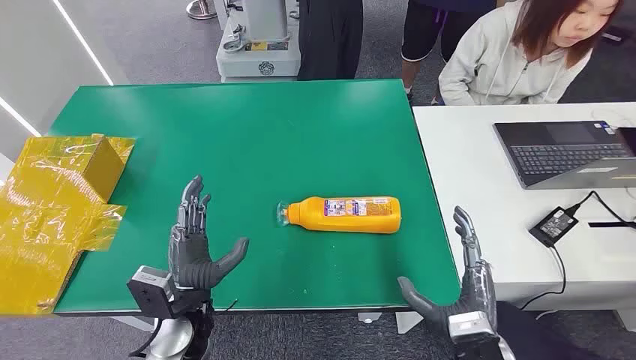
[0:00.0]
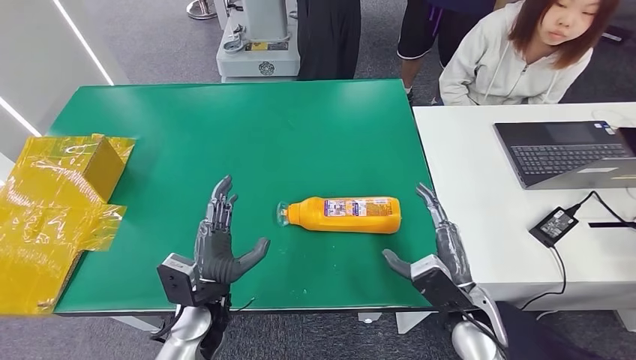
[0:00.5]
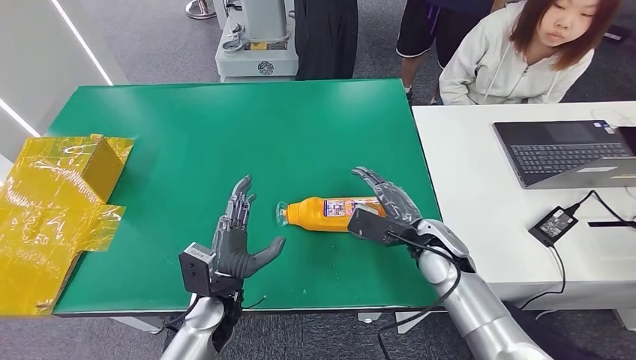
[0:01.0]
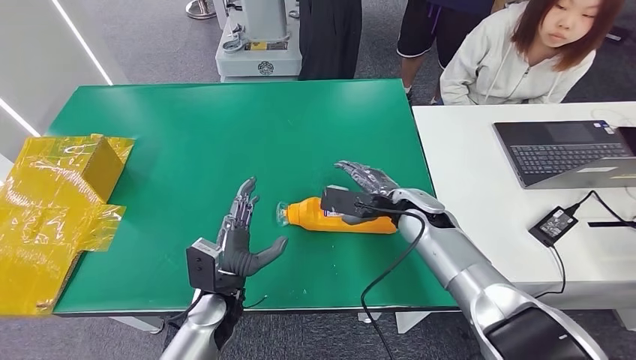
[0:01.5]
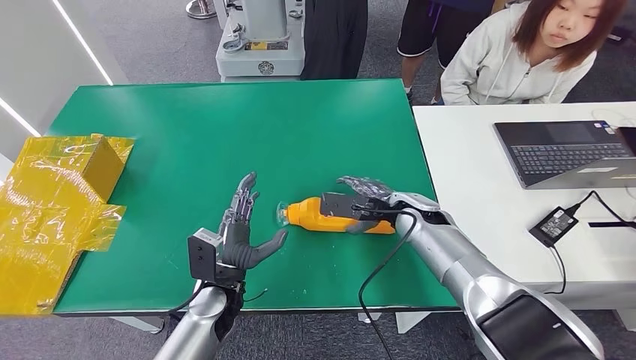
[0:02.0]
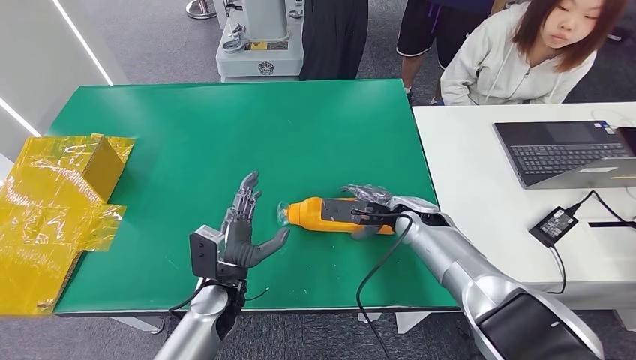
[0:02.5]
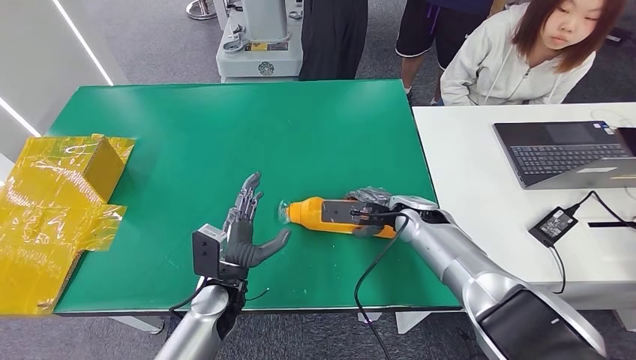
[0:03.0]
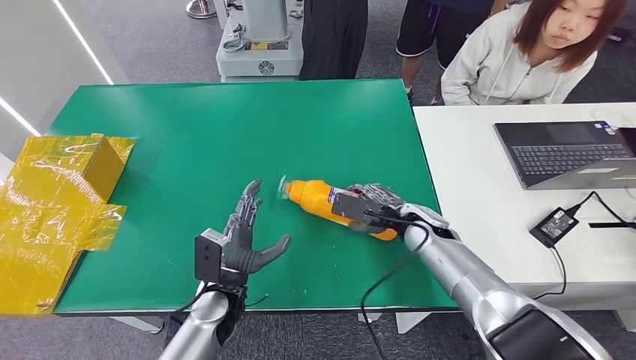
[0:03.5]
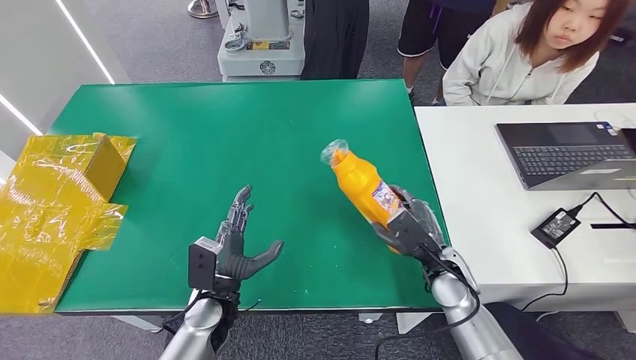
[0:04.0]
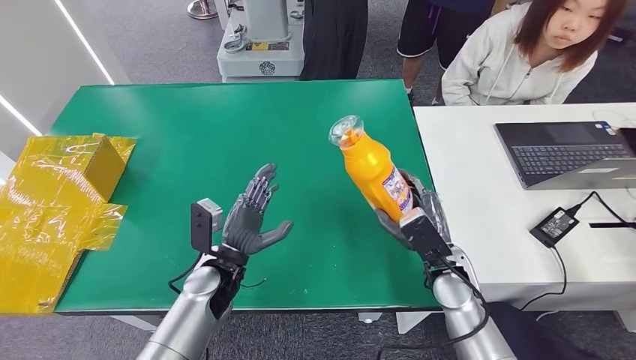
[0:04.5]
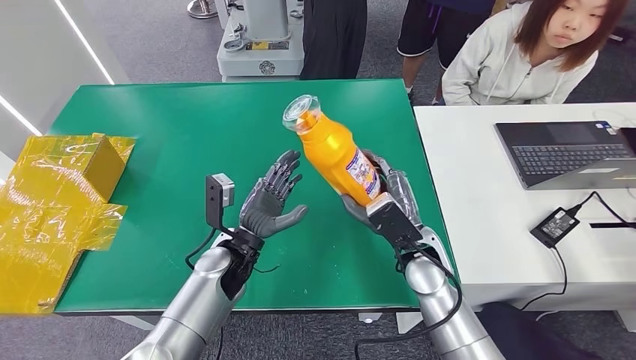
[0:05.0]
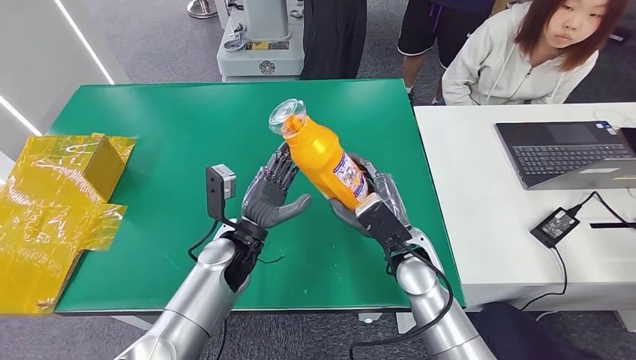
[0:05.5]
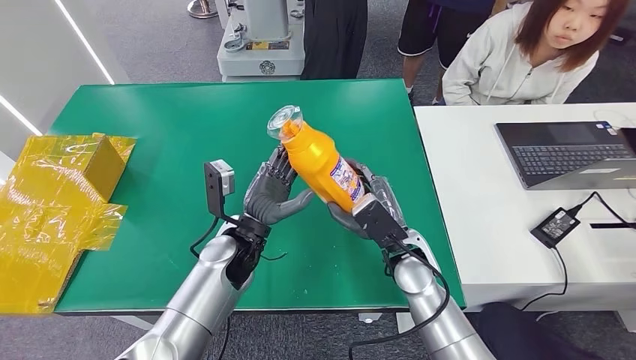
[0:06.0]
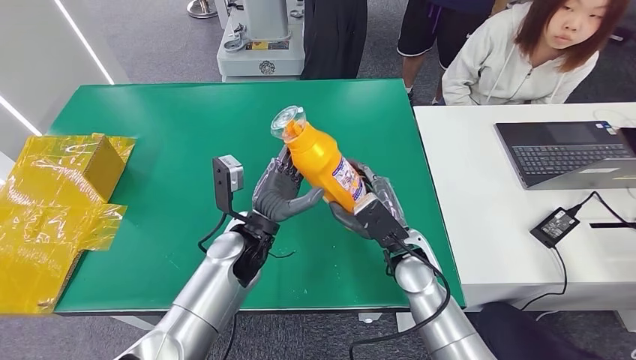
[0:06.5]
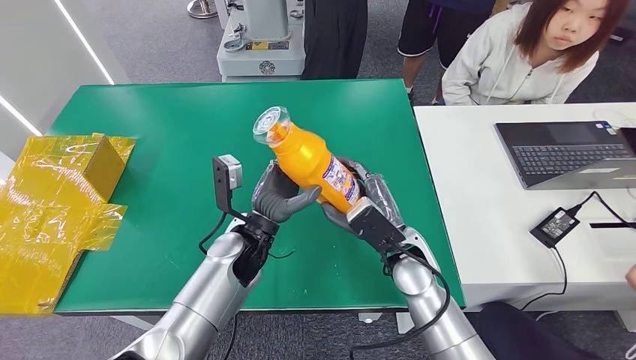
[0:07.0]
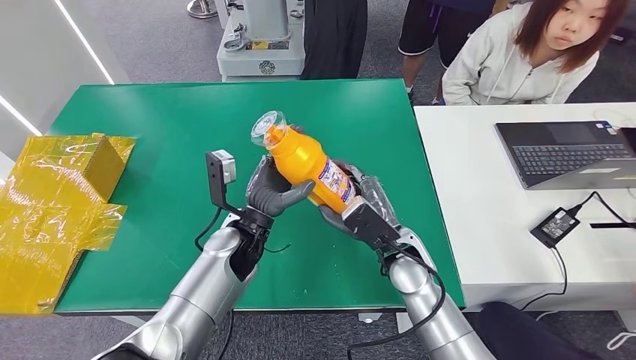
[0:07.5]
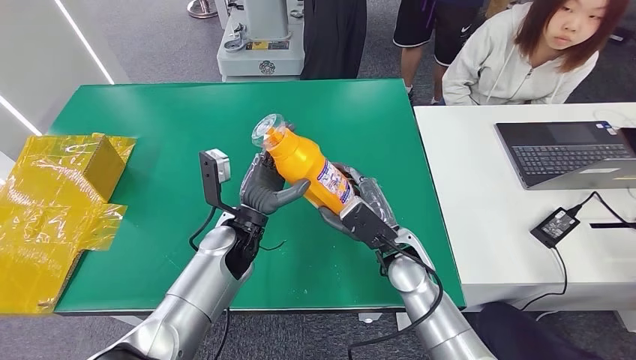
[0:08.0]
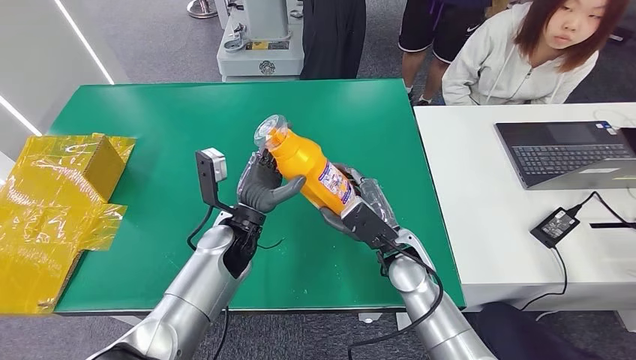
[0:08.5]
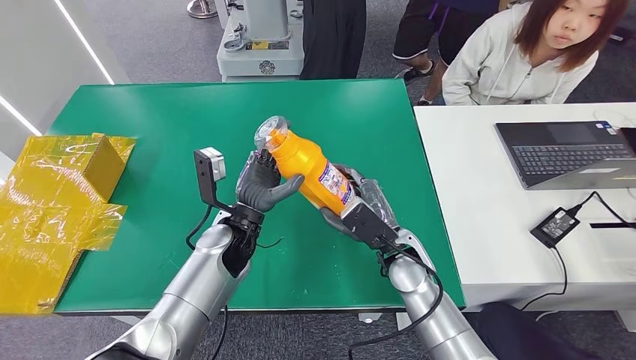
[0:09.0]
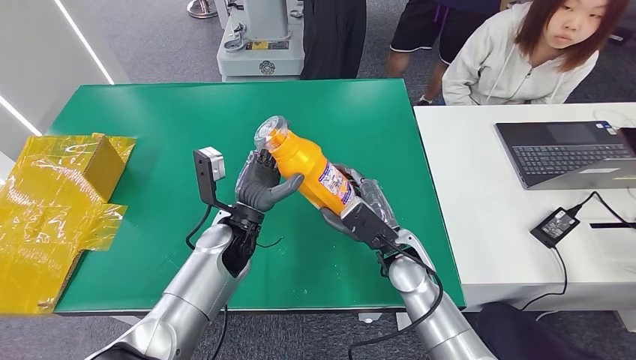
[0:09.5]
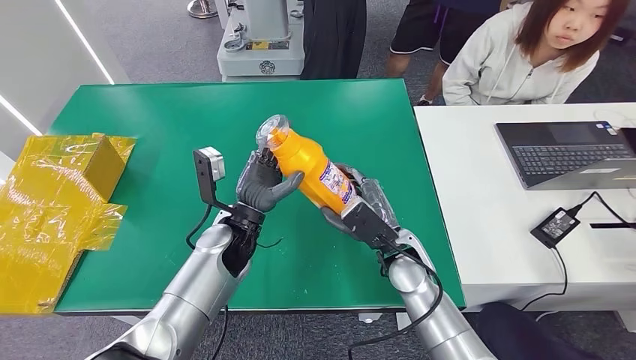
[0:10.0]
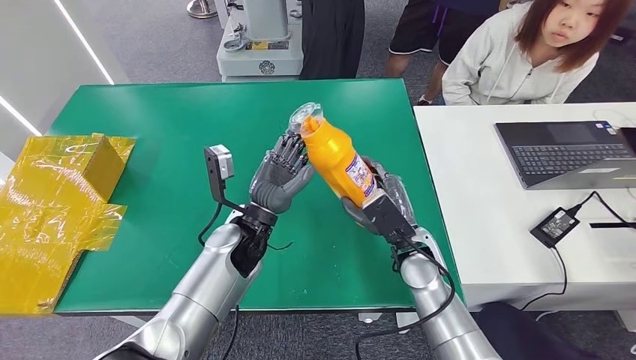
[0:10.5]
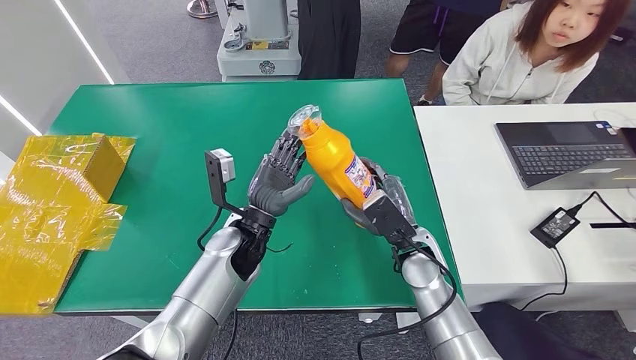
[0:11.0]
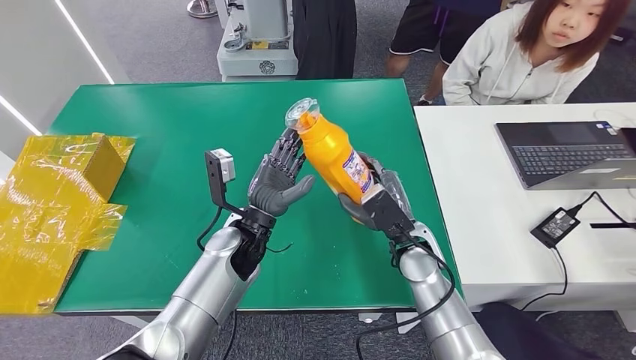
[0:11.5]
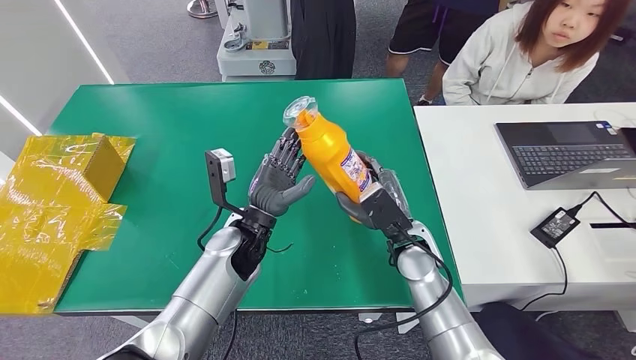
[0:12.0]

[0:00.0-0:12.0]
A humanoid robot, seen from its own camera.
Step, 0:00.0 to 0:05.0: Pick up the bottle from the table.
0:02.0 to 0:04.0: The right hand heads backward and downward, covering roughly 10 cm.
0:04.0 to 0:06.0: The right hand heads to the left and upward, covering roughly 10 cm. Meanwhile the left hand travels upward and forward by roughly 10 cm.
0:06.0 to 0:08.0: There are only small adjustments of the hands.
0:08.0 to 0:10.0: The two hands keep their place.
0:10.0 to 0:12.0: The hands move only a little.

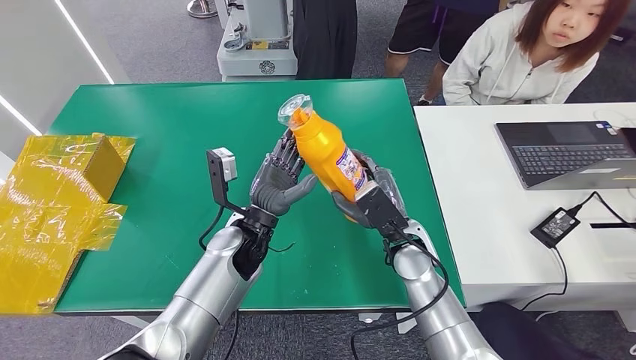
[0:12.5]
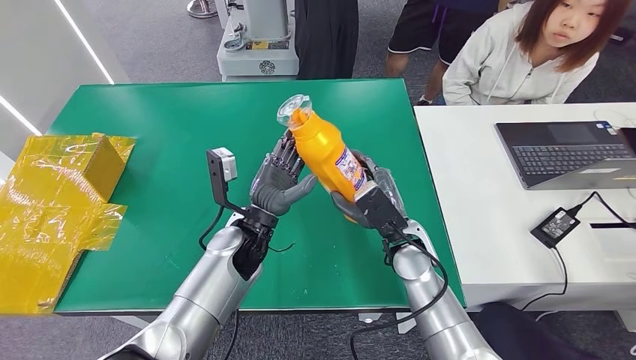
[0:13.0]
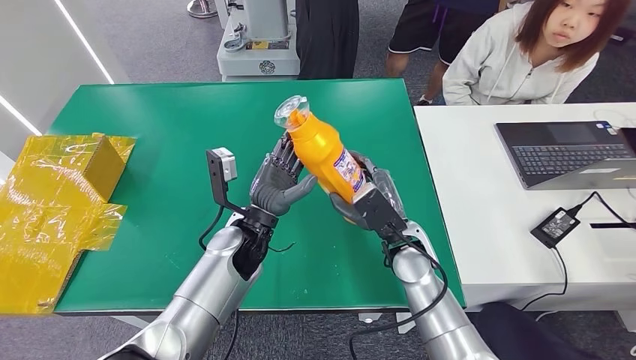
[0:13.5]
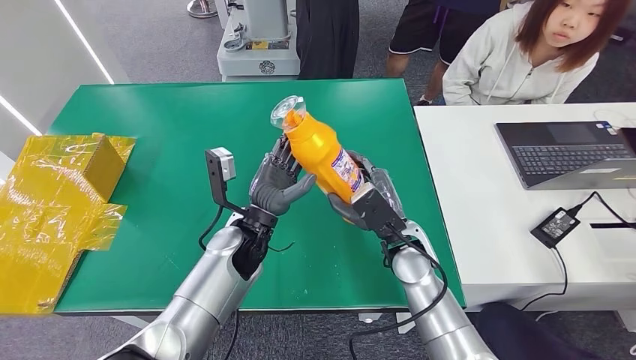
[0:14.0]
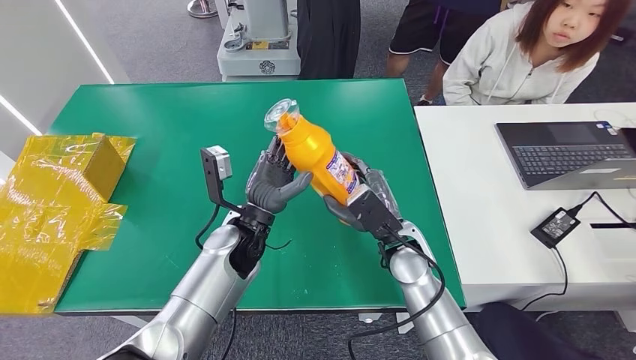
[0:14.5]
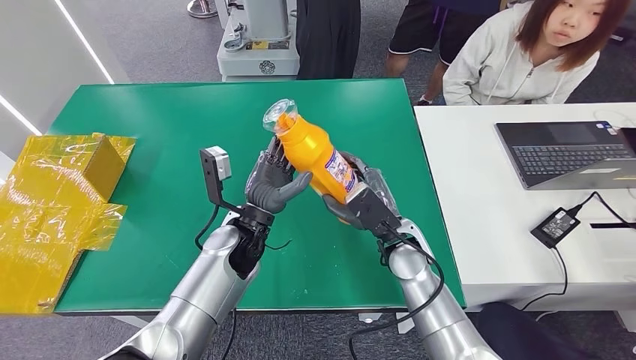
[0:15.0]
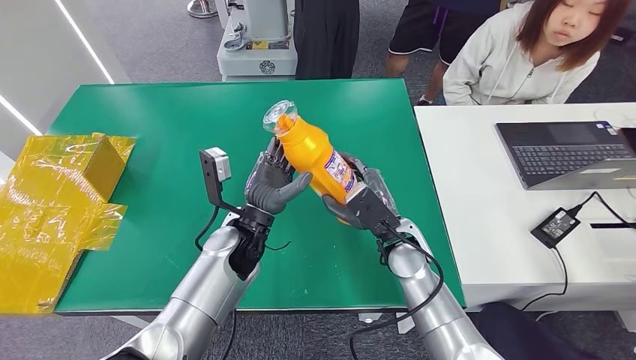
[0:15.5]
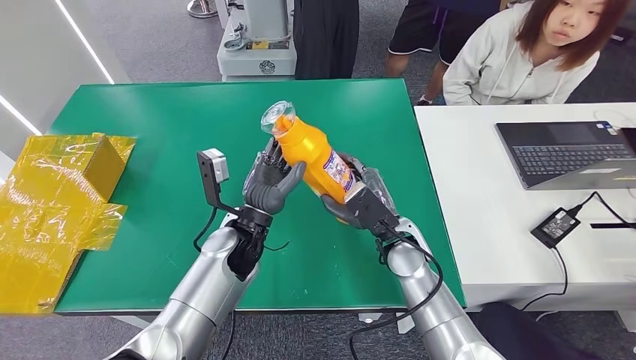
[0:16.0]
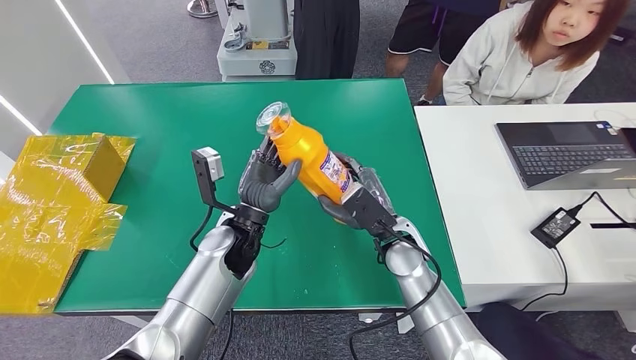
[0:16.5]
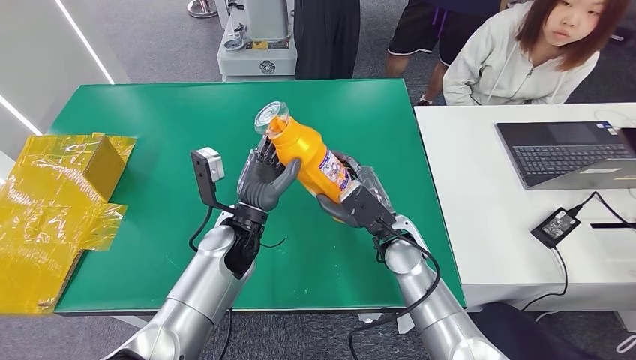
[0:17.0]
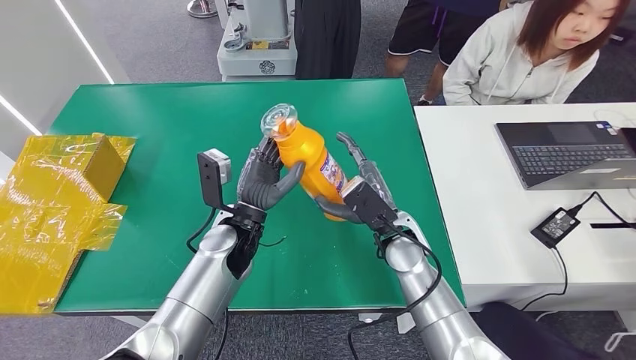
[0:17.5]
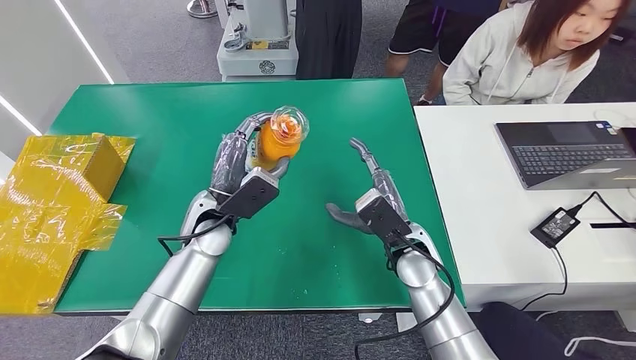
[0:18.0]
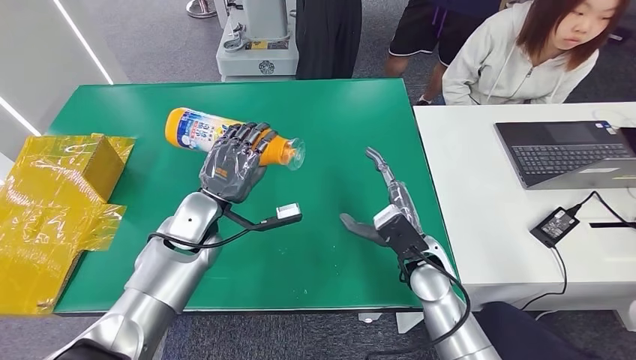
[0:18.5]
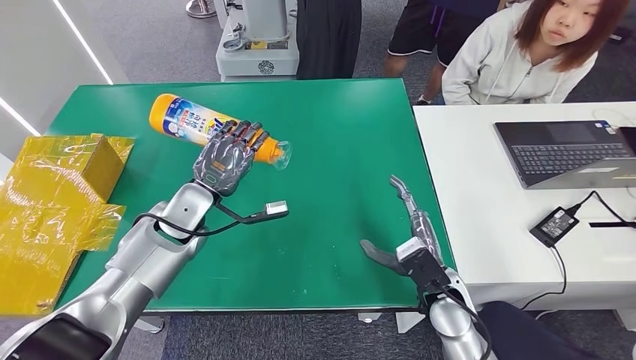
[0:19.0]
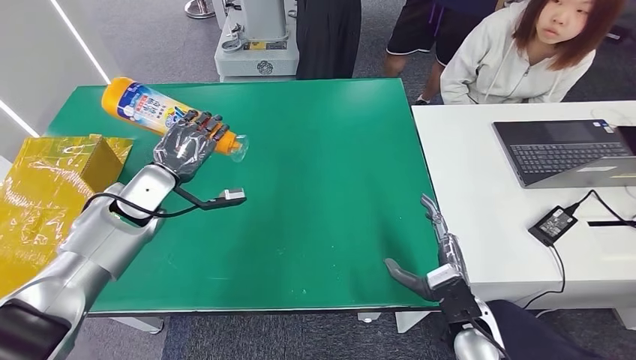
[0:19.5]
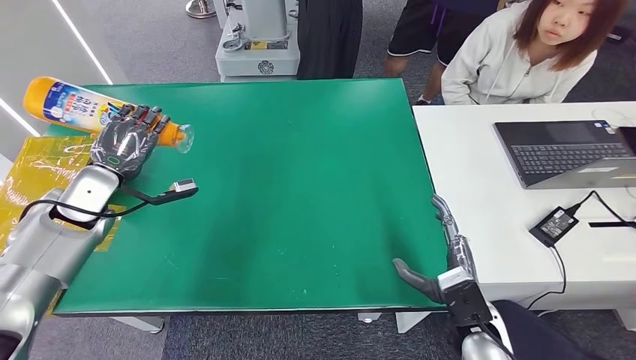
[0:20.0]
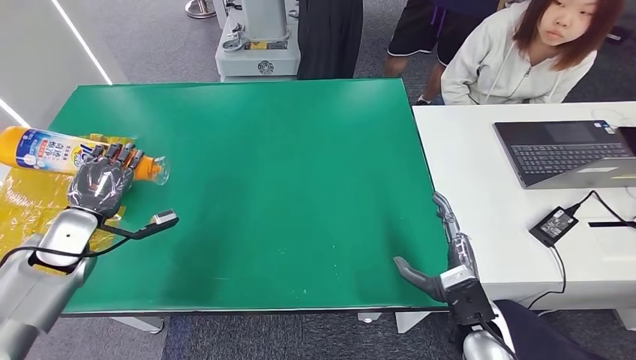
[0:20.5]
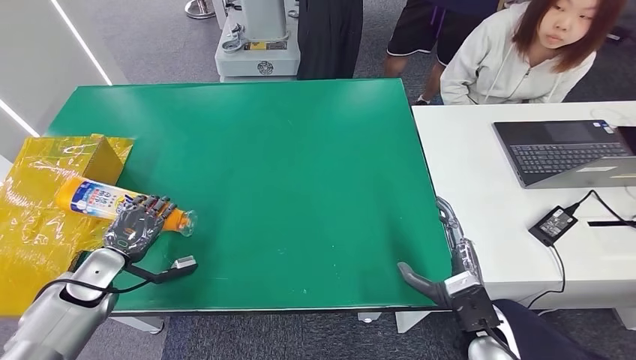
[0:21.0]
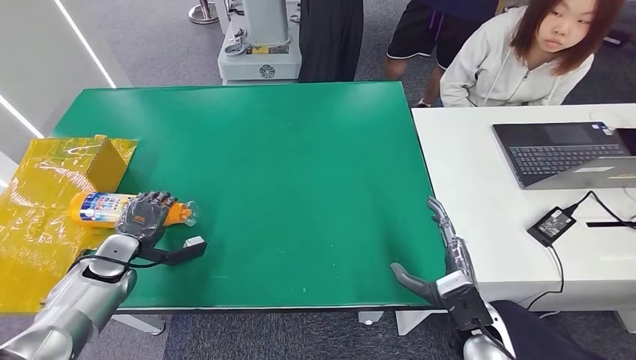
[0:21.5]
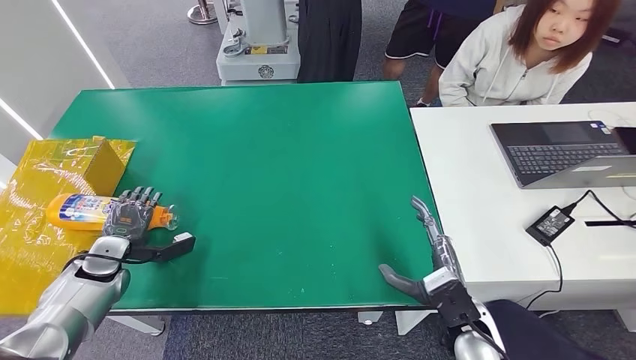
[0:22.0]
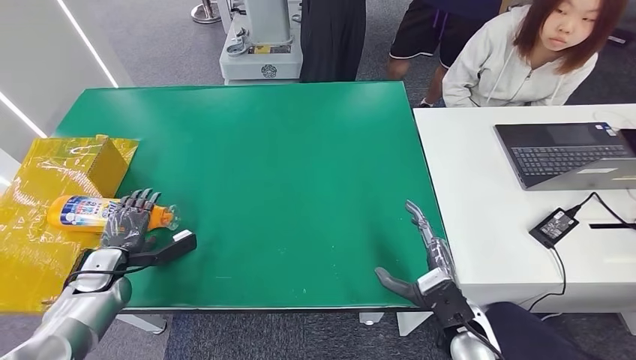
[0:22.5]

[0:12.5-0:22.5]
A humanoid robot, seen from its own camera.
Step, 0:12.5 to 0:22.5: Turn the bottle to the front side.
0:12.5 to 0:14.5: Both hands stay about where they are.
0:14.5 to 0:16.5: Neither hand changes place.
0:16.5 to 0:18.5: The left hand goes roughly 5 cm to the left.
